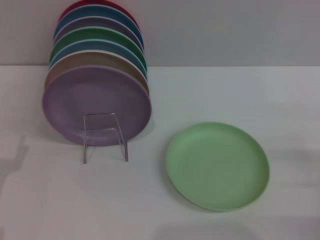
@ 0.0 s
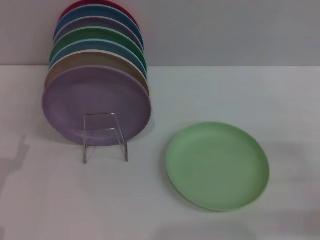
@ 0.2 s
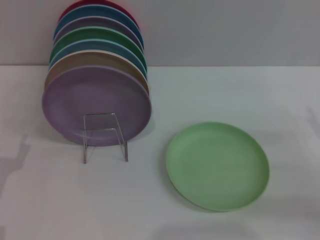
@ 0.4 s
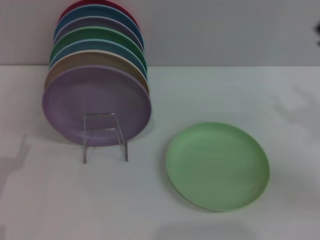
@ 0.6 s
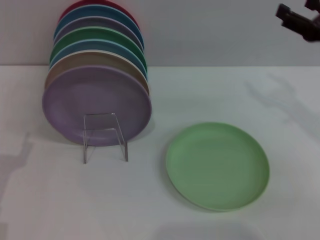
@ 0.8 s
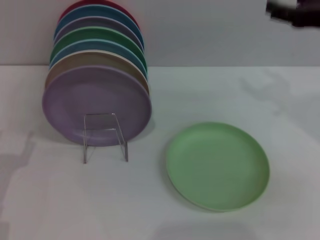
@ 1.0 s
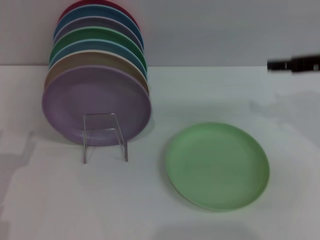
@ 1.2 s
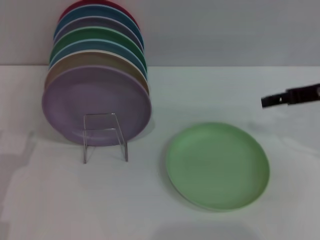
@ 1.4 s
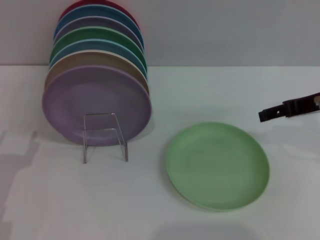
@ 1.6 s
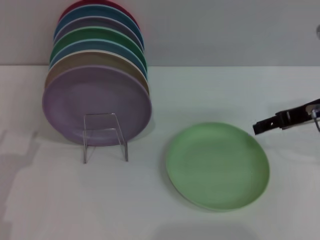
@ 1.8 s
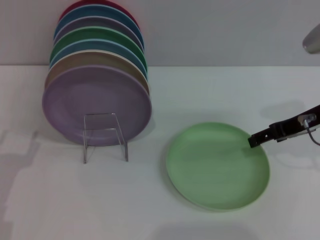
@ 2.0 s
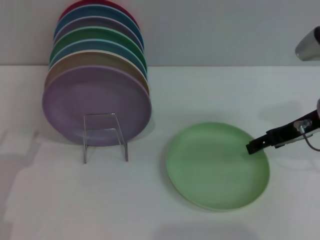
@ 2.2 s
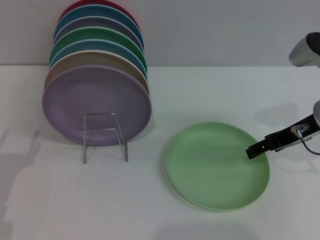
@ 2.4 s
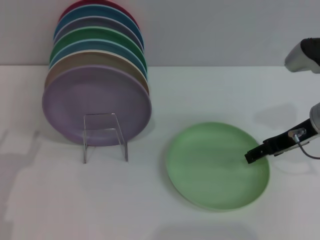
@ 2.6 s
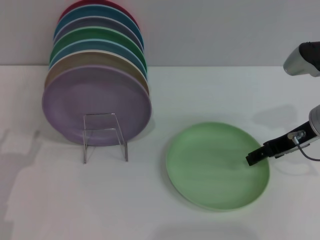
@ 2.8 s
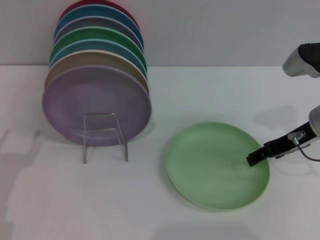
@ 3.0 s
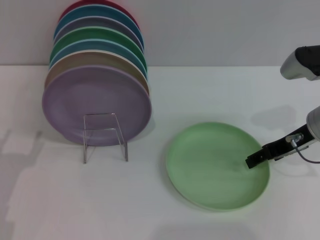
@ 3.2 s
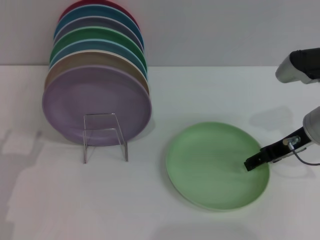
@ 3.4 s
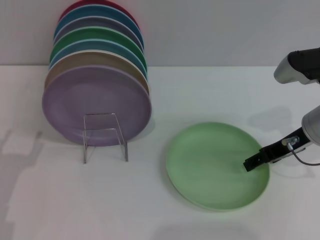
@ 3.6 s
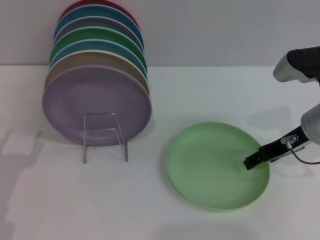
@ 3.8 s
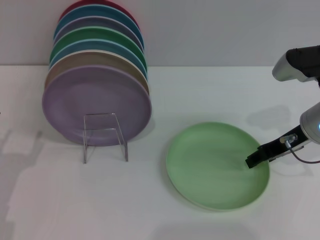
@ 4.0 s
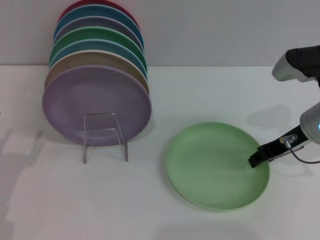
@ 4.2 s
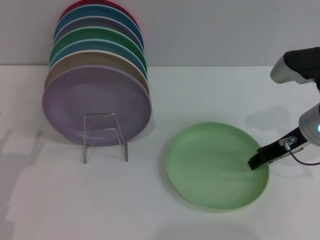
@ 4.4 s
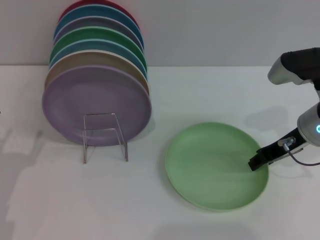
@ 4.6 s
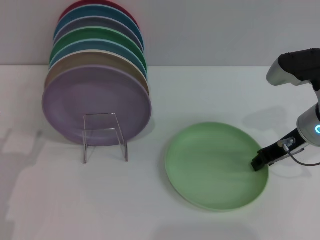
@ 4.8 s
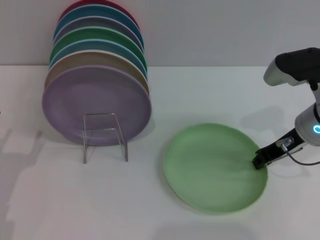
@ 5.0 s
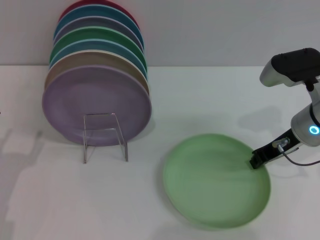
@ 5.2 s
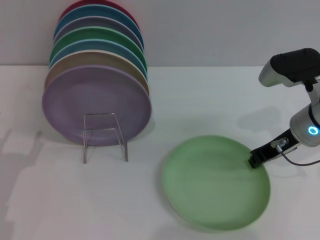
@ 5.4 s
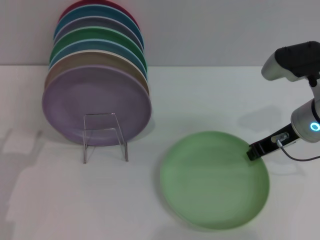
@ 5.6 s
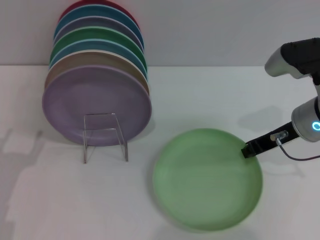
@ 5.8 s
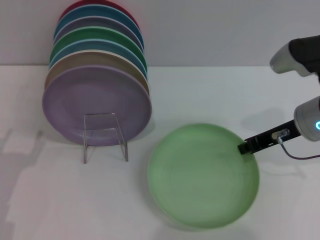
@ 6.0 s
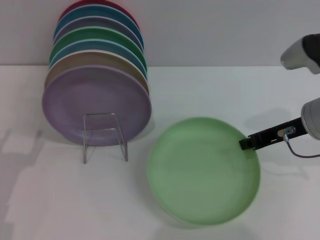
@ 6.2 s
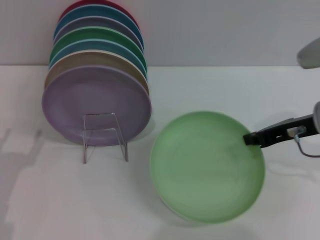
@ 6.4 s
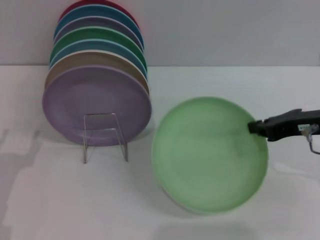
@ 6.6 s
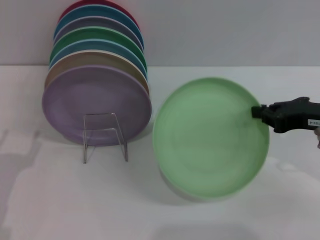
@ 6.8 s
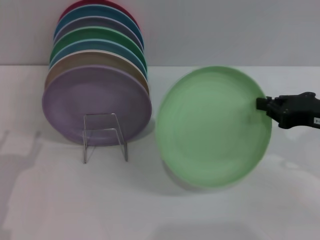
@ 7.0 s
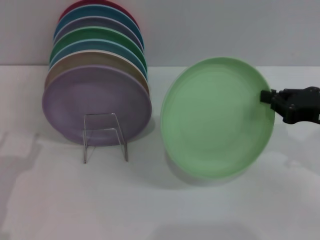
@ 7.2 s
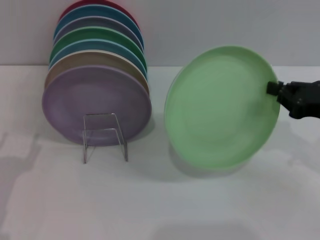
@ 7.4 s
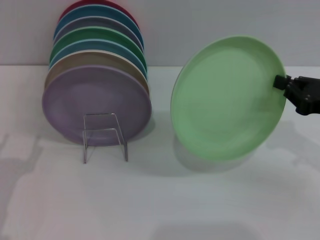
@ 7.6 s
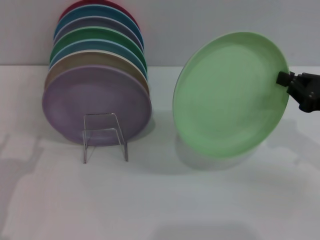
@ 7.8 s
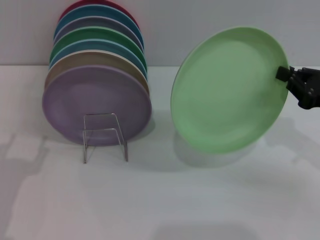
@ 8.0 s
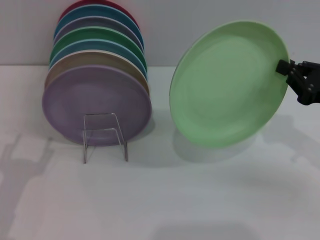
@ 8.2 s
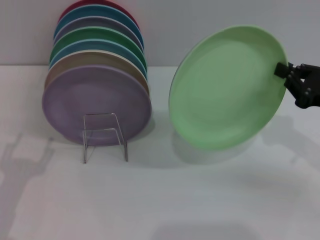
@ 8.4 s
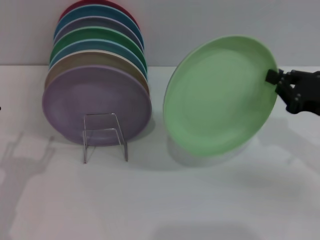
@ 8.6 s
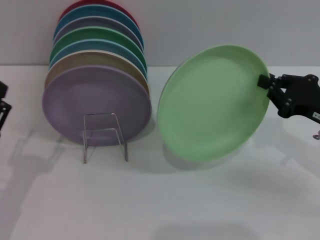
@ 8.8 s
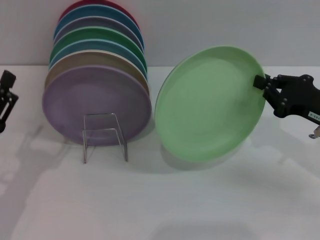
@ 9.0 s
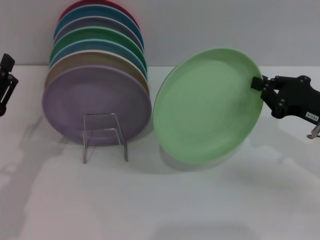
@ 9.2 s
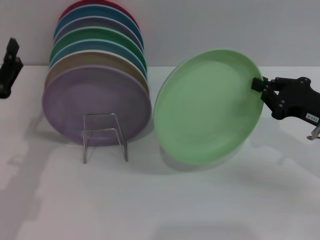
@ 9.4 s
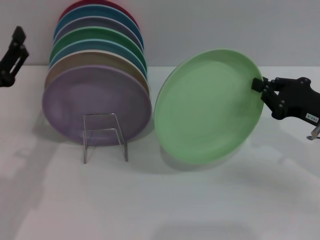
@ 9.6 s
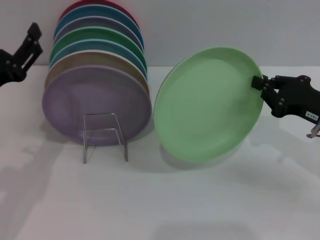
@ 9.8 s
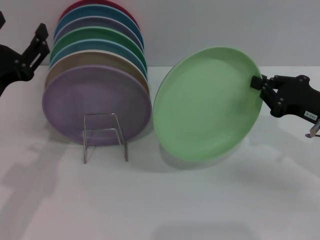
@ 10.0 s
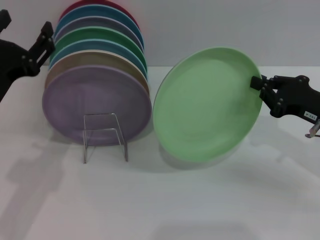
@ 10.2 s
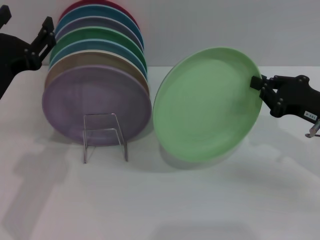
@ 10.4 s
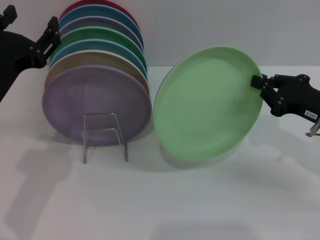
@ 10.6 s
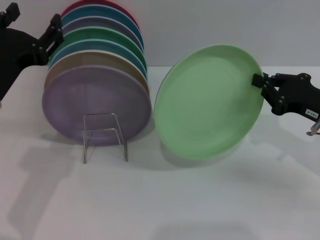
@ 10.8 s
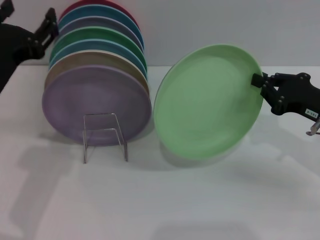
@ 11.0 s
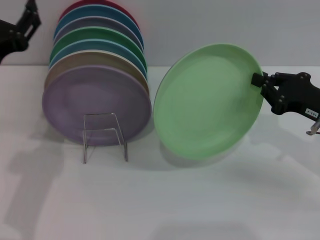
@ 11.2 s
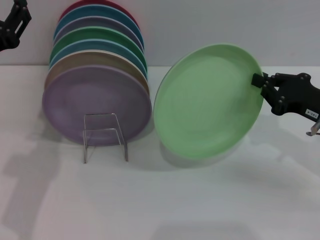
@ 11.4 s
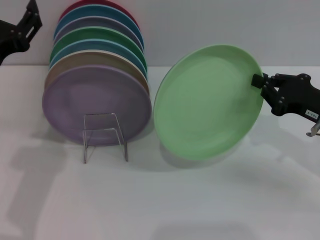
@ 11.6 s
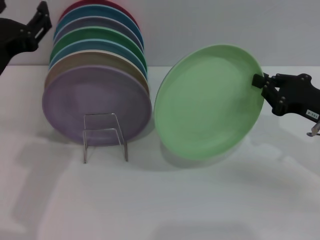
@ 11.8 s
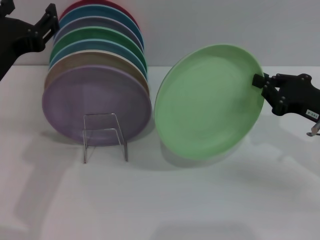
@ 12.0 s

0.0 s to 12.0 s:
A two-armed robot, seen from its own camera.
Task of the whole recording: Grip the plate with one hand, pass it to the other, then set it on the shelf.
Step, 0.0 to 7.4 s: Pick up the plate with the right gripper.
0.0 to 1.6 s: The right gripper travels upward, forward and to the left by roughly 20 cm.
1.6 to 3.0 s: The right gripper goes approximately 5 cm downward.
3.0 to 4.4 s: The right gripper closes.
4.4 to 6.0 s: The right gripper closes.
6.0 to 7.6 s: The right gripper moves to the right and backward, some 10 cm.
7.6 to 9.0 s: There are only small adjustments of the grippers.
9.0 to 10.4 s: The left gripper goes approximately 10 cm upward and to the right.
10.4 to 12.0 s: The grippers move only a little.

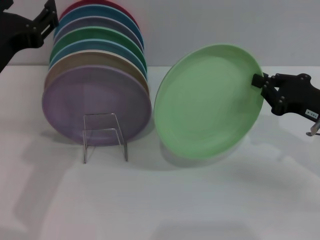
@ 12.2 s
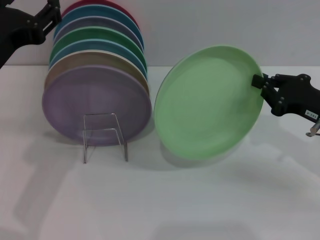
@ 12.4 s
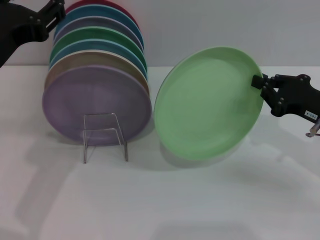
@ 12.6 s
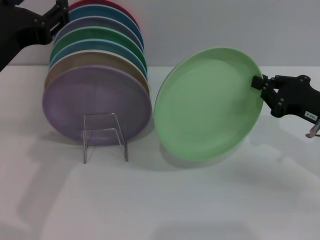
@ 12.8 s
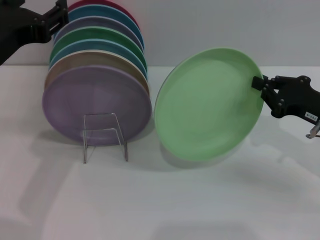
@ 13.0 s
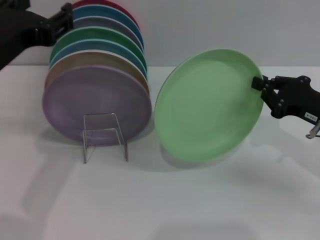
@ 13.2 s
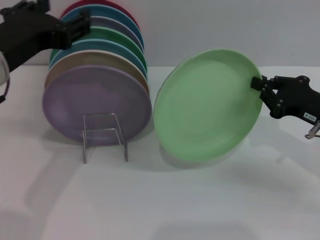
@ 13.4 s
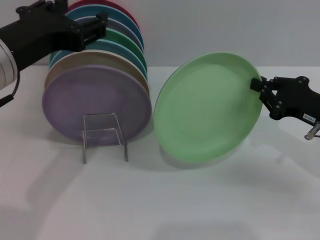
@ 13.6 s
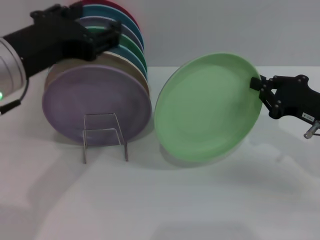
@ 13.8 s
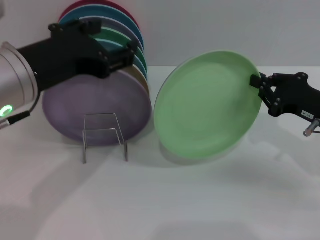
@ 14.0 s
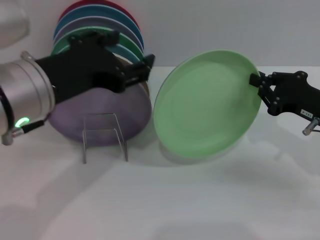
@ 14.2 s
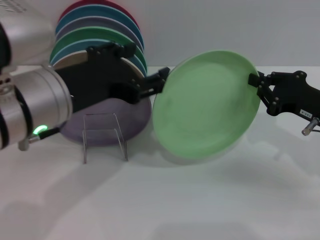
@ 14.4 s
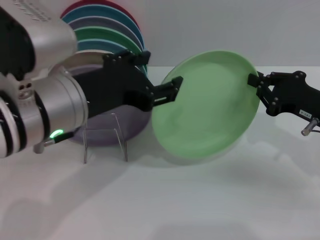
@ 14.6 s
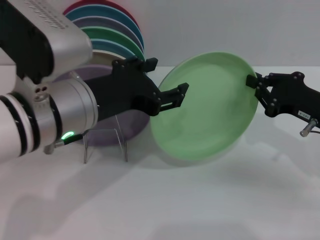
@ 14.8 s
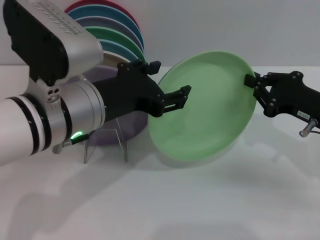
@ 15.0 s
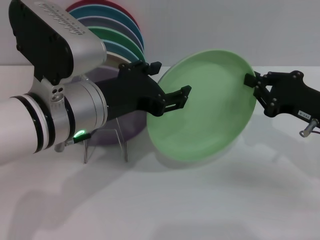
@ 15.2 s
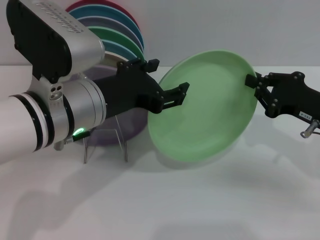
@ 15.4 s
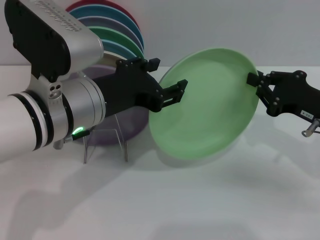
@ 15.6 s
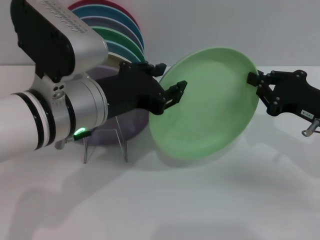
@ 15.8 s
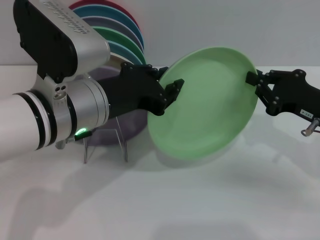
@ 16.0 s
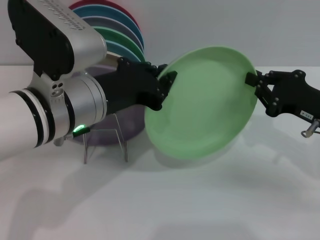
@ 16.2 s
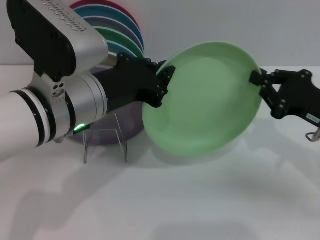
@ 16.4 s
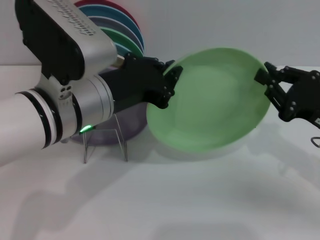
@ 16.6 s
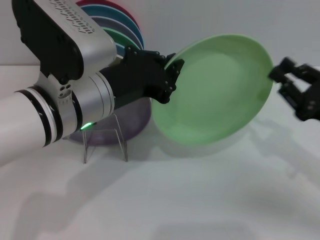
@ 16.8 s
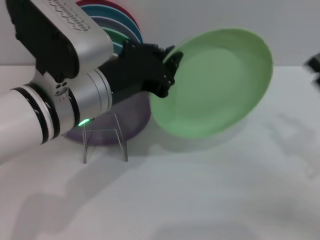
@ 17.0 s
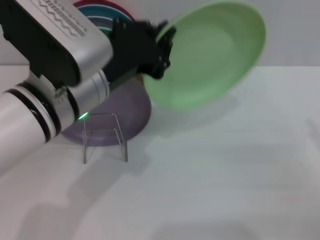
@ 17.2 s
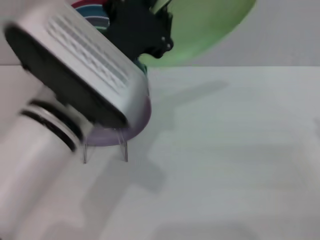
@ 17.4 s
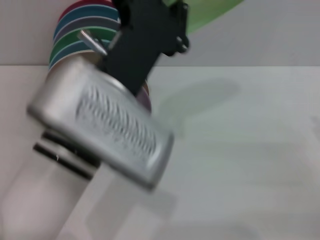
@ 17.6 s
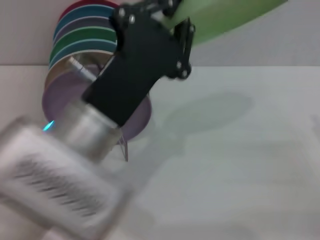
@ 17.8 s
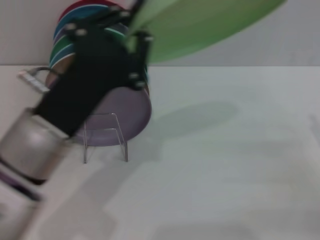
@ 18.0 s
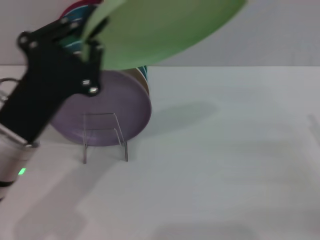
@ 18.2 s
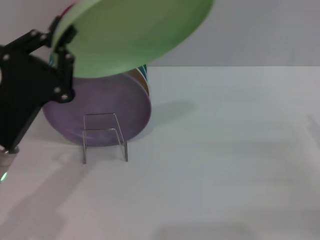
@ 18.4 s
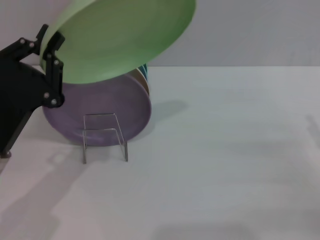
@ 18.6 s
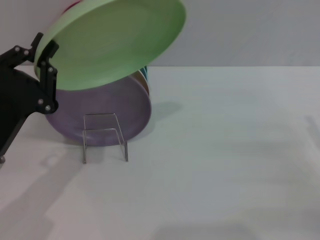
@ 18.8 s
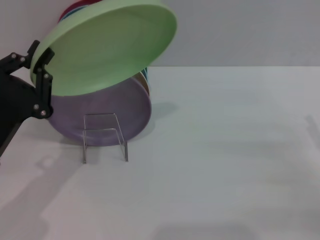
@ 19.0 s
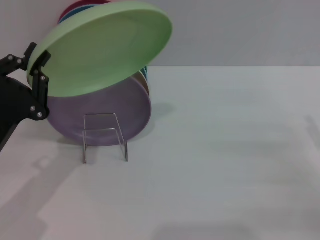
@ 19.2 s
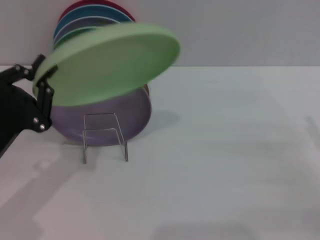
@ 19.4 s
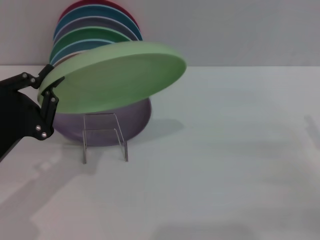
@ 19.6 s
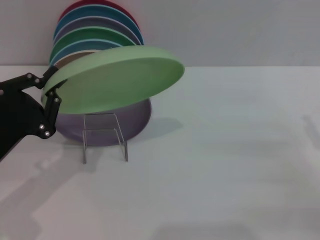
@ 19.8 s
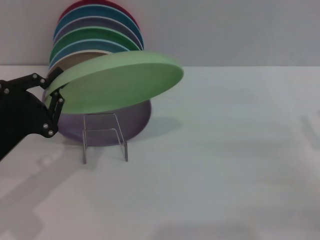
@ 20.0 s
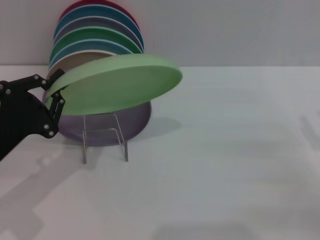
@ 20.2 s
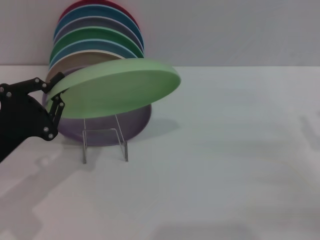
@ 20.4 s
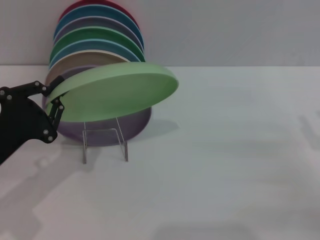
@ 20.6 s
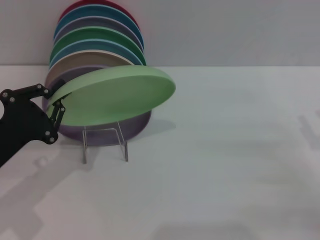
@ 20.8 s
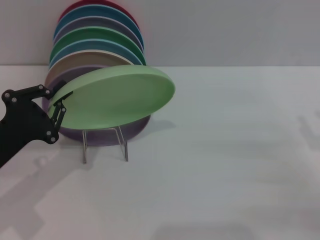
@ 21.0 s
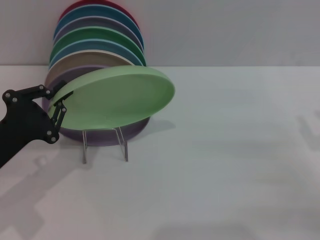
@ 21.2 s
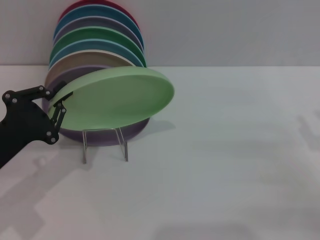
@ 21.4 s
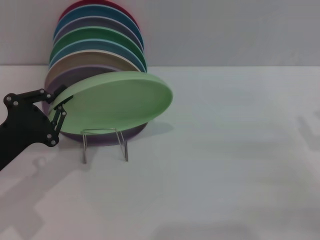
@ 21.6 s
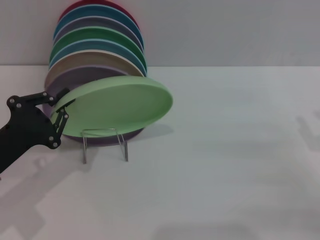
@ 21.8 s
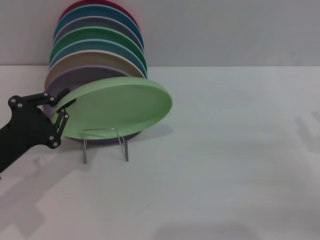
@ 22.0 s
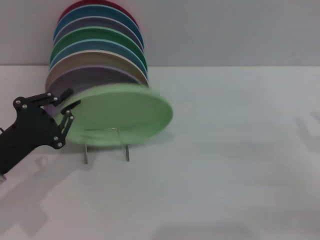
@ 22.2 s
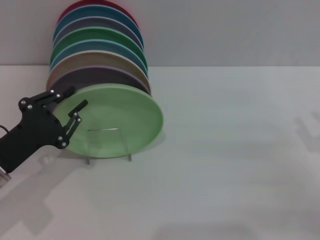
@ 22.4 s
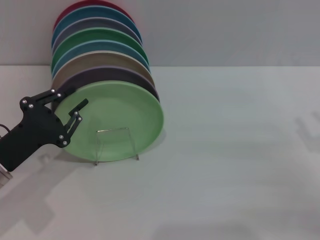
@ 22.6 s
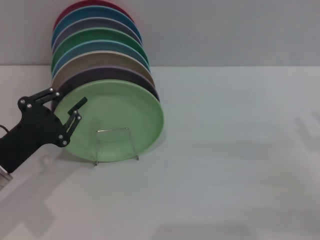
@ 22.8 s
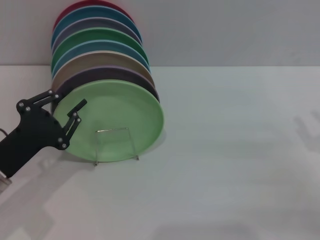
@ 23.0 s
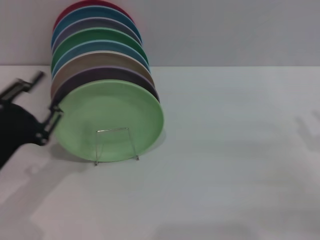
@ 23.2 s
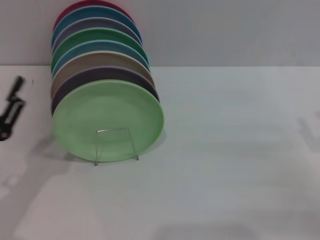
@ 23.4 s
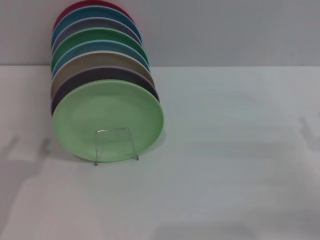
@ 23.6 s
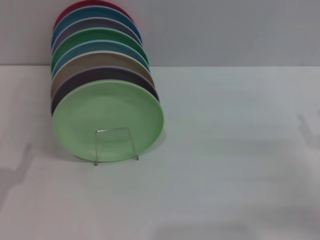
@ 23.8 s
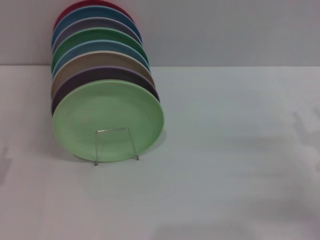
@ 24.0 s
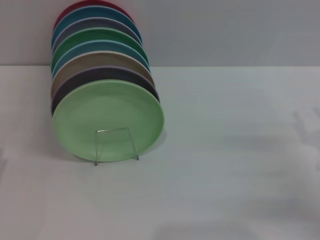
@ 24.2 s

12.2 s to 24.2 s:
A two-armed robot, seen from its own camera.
Task of the whole recording: Grip the plate with one hand, pass it to the other, then set it on the shelf.
Step, 12.2 to 16.8 s: Pass the plate from the right gripper to the left gripper.
Step, 17.0 to 23.2 s: Place the plate on the shelf with the left gripper.
13.8 to 15.2 s: The left gripper moves to the right and downward, about 10 cm.
15.2 to 16.6 s: The left gripper closes.
16.6 to 18.2 s: The right gripper moves to the right, some 5 cm, and opens up. Meanwhile the left gripper heads to the left and downward, covering about 10 cm.
18.2 to 19.8 s: The left gripper moves to the left, approximately 10 cm.
19.8 to 22.6 s: There are only small adjustments of the grippers.
22.6 to 24.2 s: The left gripper is displaced backward and to the left by about 10 cm, and opens its fingers.
